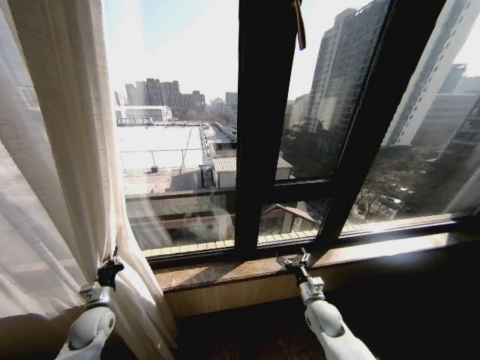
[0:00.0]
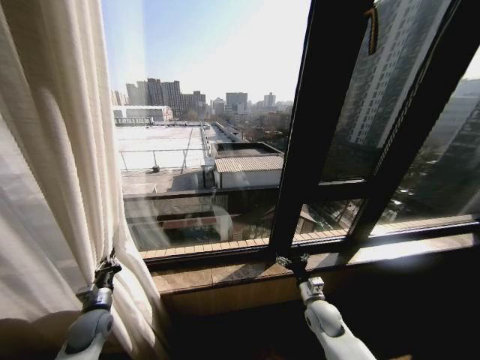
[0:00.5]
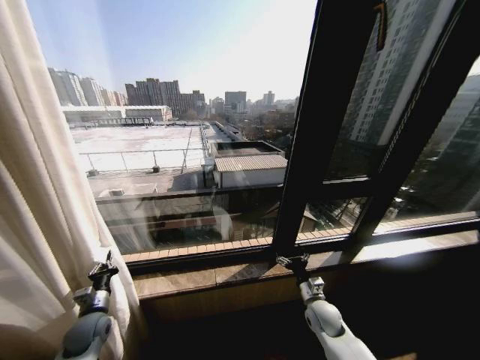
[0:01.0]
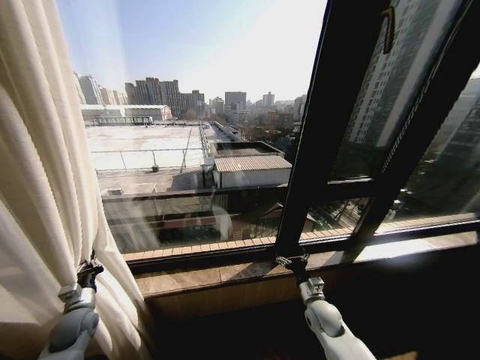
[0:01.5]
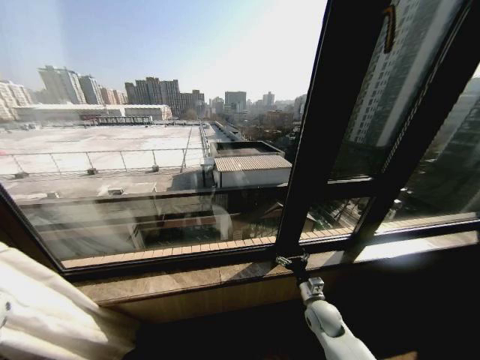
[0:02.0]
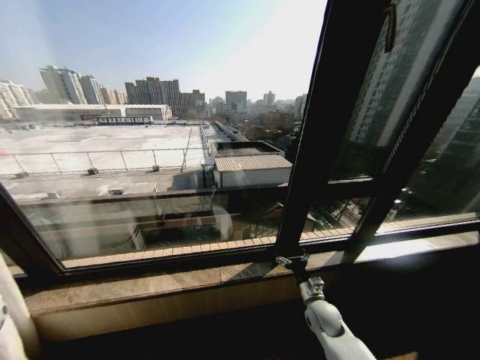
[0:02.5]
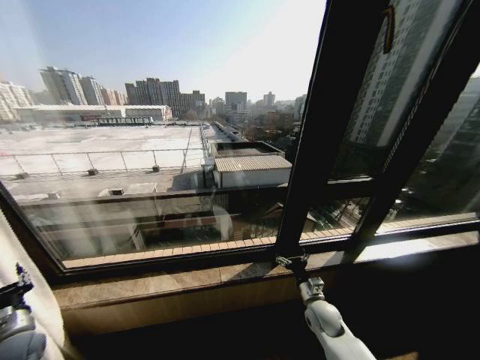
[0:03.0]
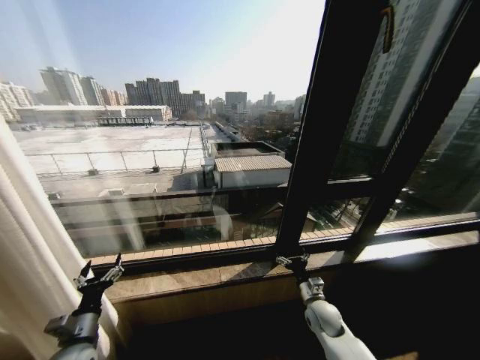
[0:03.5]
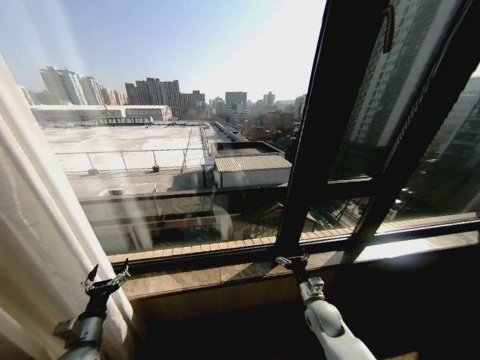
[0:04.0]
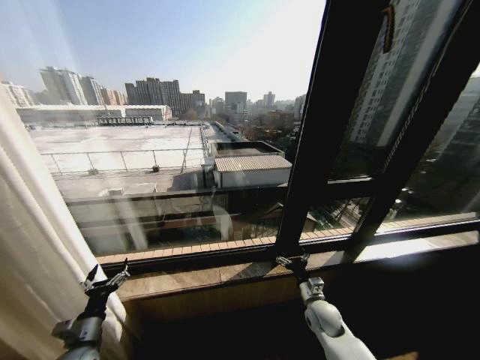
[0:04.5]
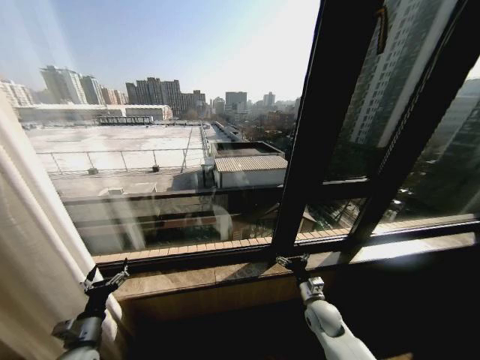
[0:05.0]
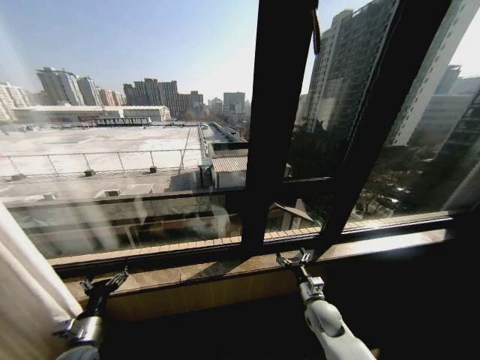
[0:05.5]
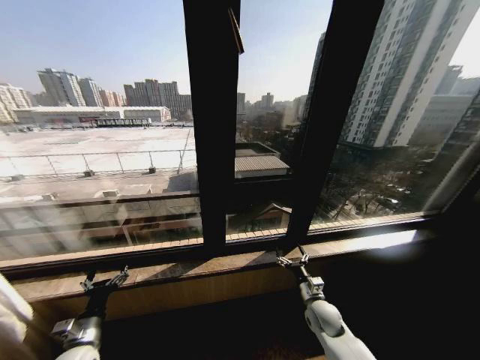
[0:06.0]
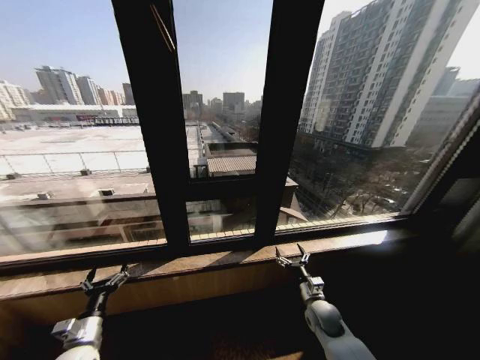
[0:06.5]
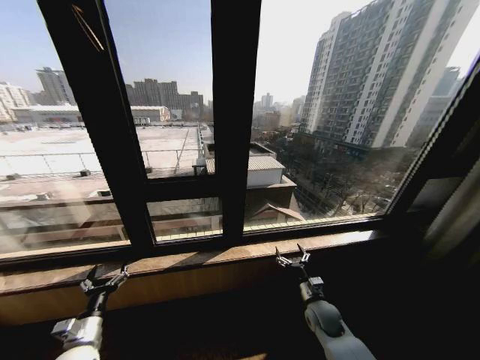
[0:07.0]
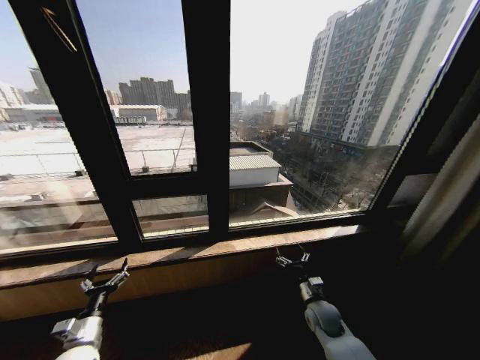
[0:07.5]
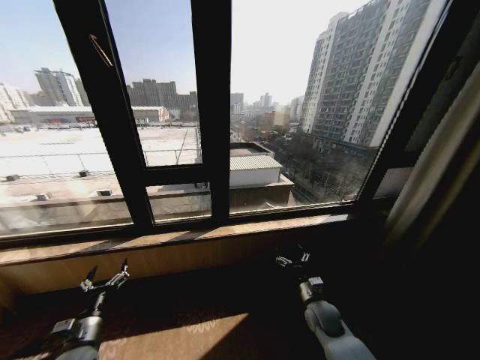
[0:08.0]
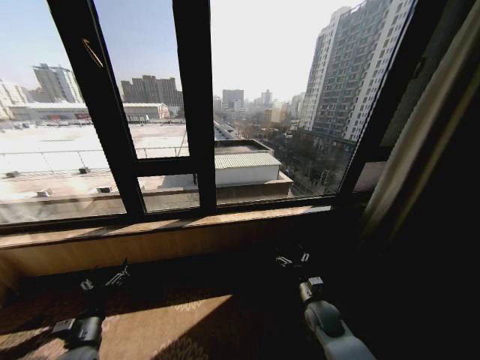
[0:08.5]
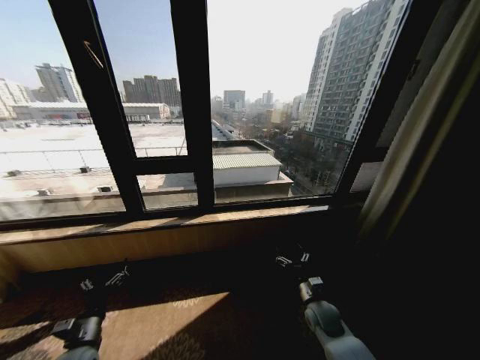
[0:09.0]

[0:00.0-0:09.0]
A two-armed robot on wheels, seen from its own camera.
Task of the whole recording: Open the curtains by pulling them apart, changing their state from closed to fully open.
0:00.0 to 0:02.0: The left gripper goes roughly 30 cm to the left.
0:02.0 to 0:04.5: The left gripper goes roughly 30 cm to the right, and opens its fingers.

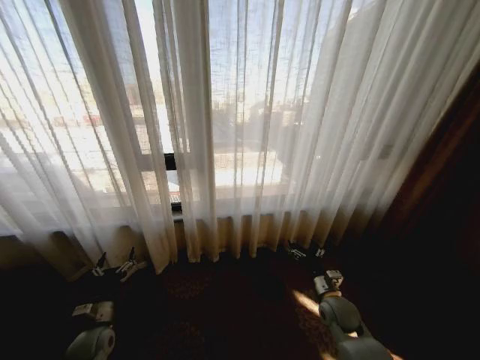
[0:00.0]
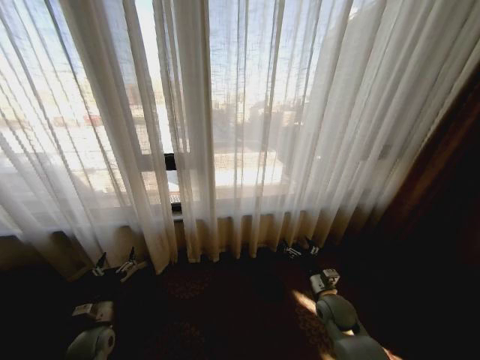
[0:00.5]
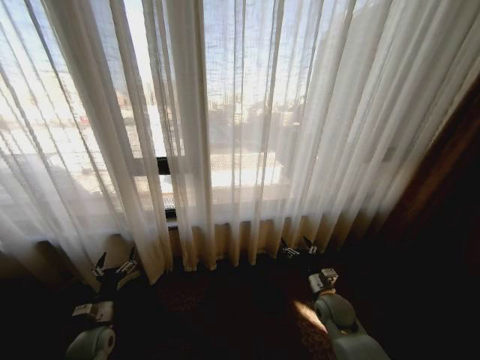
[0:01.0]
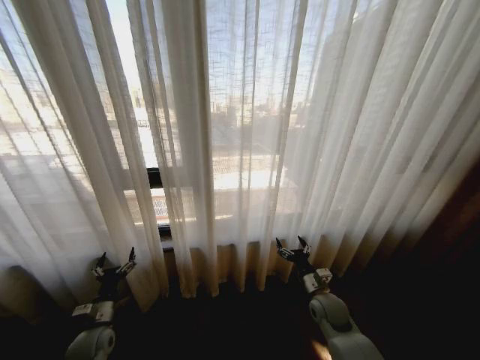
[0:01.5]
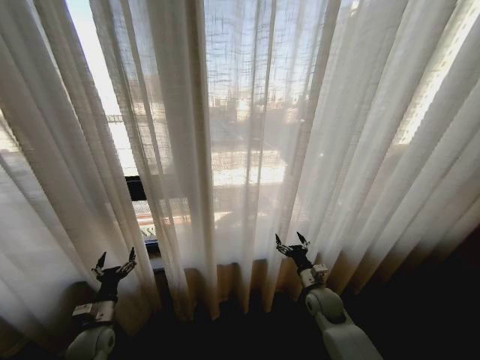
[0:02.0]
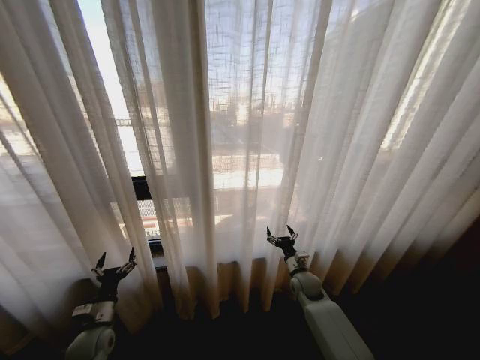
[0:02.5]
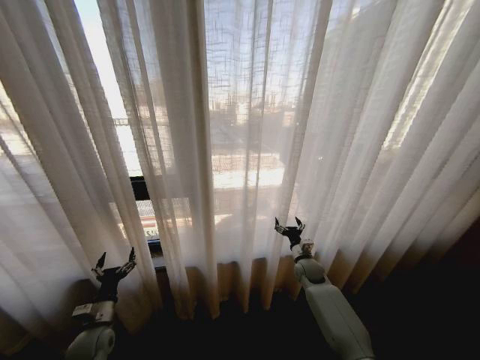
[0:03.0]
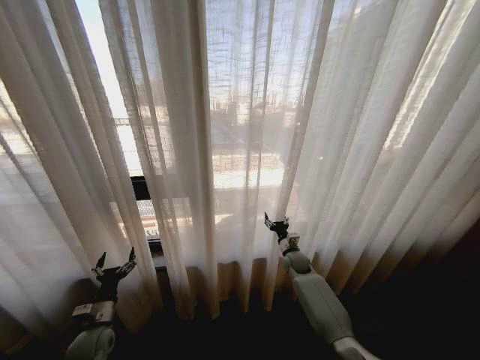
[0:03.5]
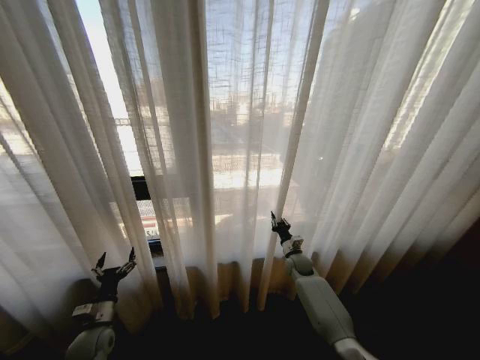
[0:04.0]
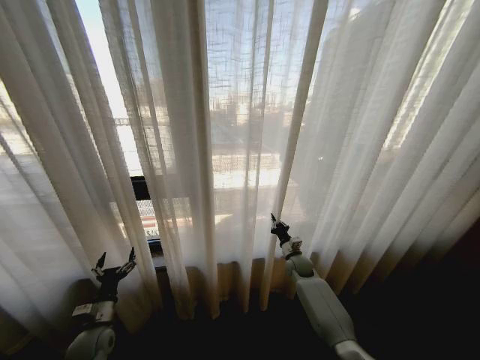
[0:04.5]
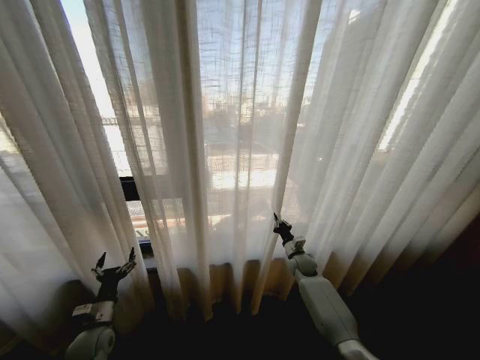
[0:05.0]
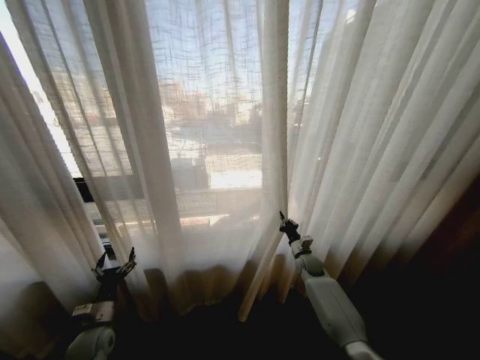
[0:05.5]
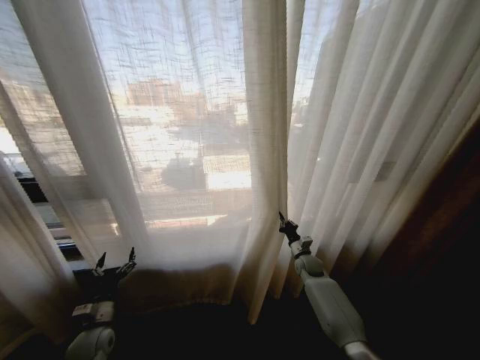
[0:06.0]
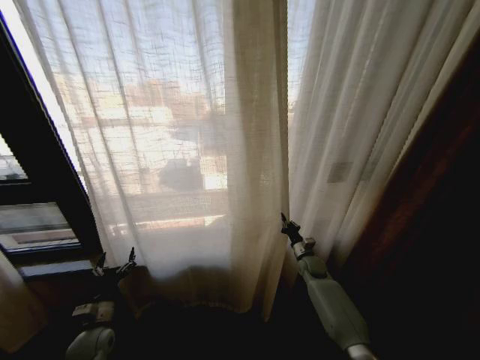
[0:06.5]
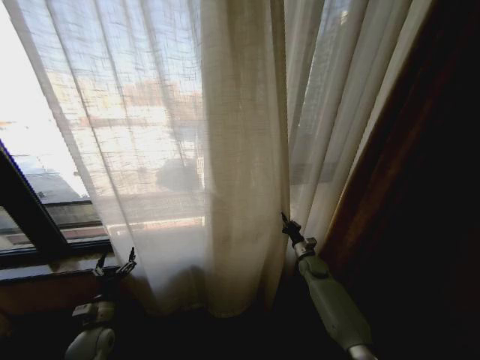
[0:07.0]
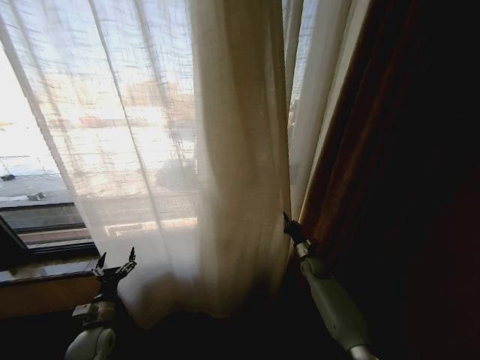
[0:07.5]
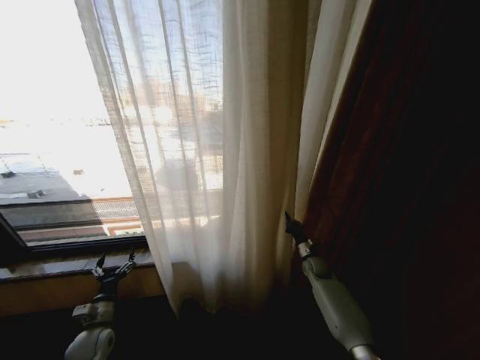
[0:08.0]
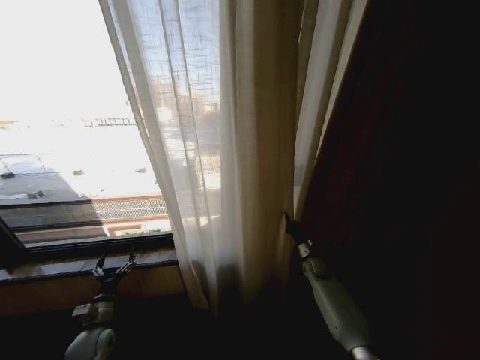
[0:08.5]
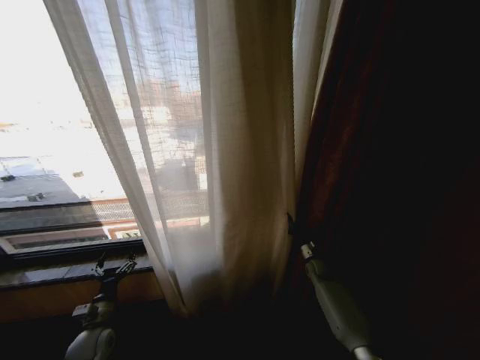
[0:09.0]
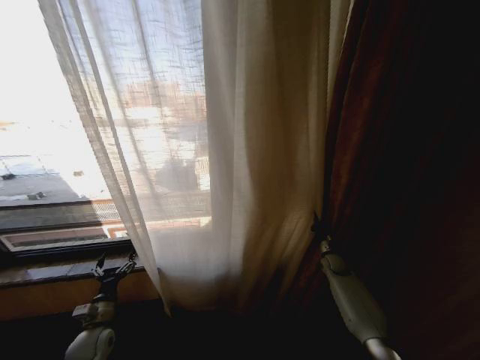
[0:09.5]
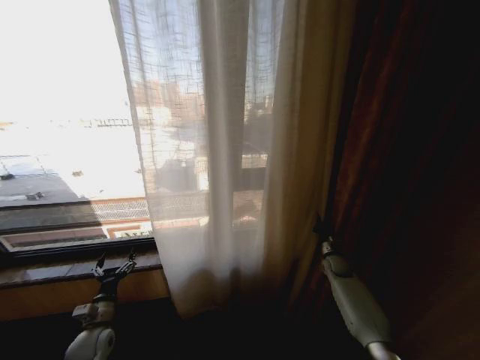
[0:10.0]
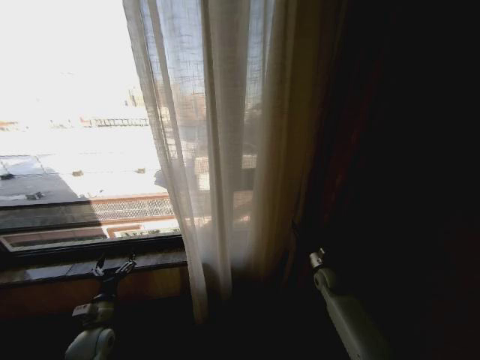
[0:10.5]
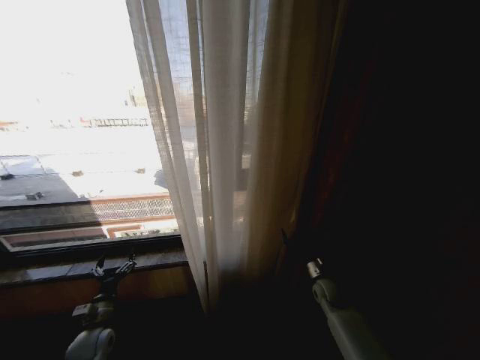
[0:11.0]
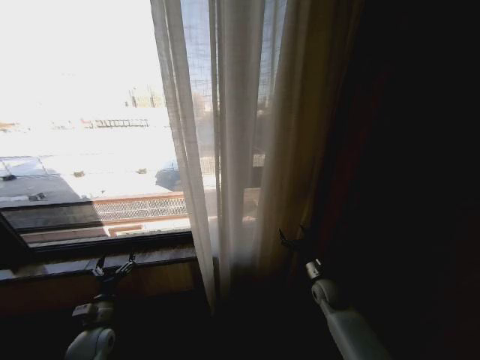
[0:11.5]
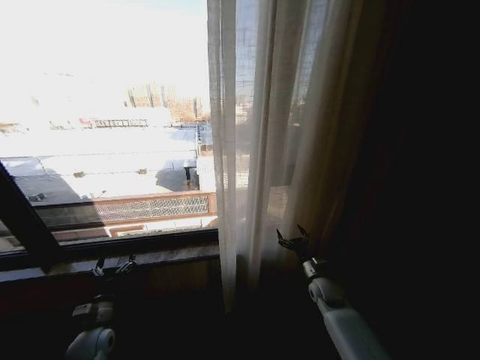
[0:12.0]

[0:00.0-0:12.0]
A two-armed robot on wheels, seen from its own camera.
Task of the whole recording: Open the curtains by pulling them apart, changing their state from closed to fully open.
0:02.0 to 0:04.0: The right gripper goes approximately 15 cm forward, and closes.
0:08.0 to 0:10.0: The right gripper moves to the right, some 10 cm.
0:10.0 to 0:12.0: The right gripper shifts about 15 cm to the left and backward, and opens up.

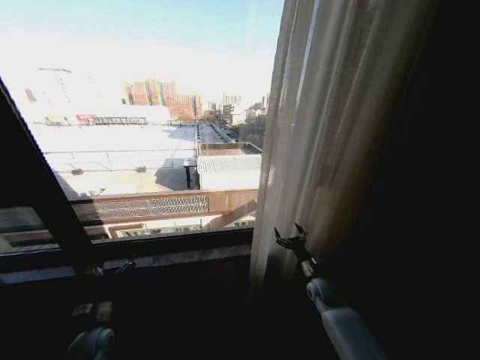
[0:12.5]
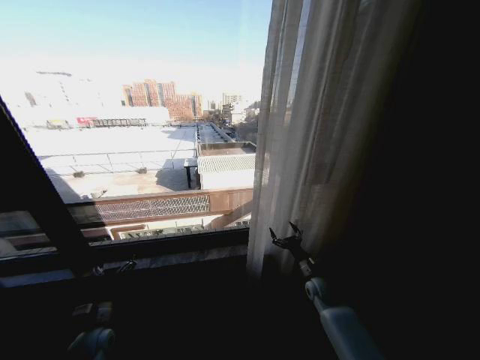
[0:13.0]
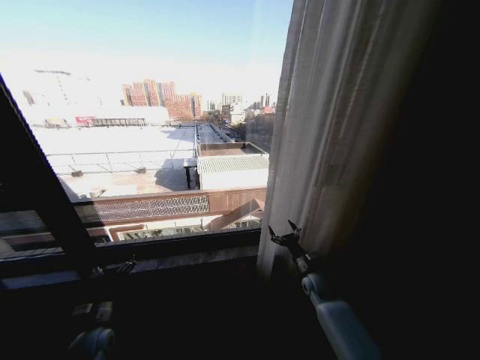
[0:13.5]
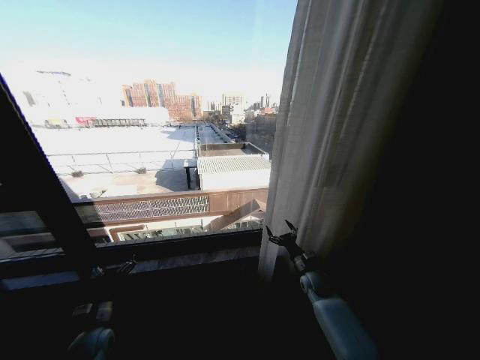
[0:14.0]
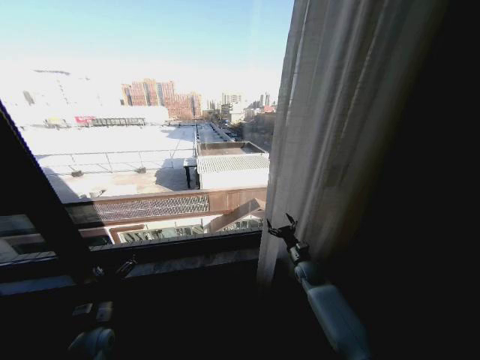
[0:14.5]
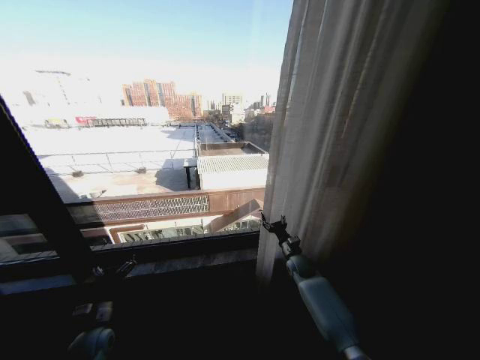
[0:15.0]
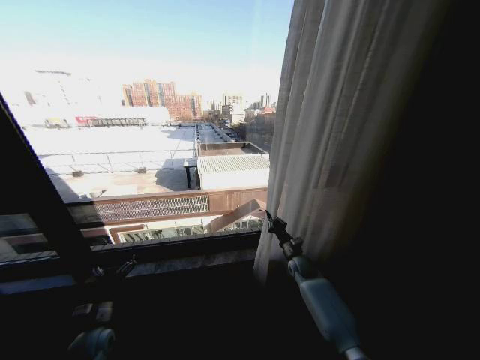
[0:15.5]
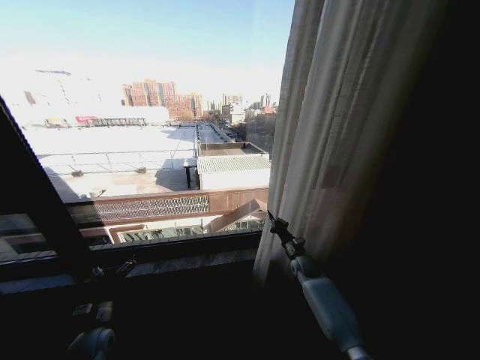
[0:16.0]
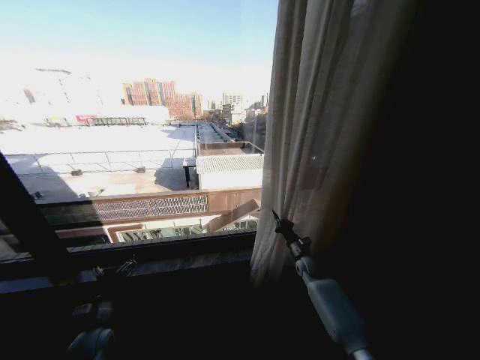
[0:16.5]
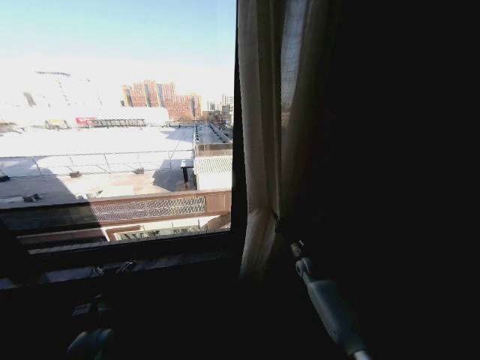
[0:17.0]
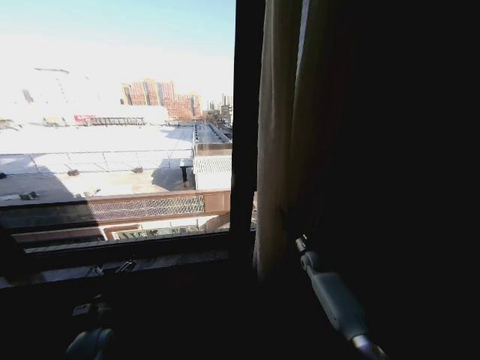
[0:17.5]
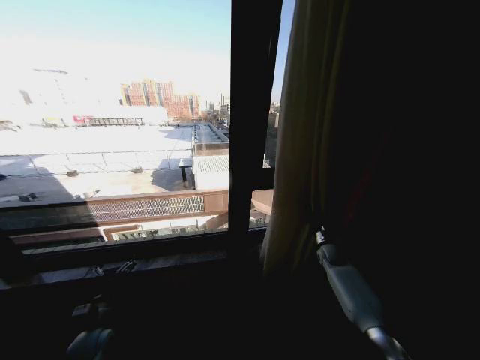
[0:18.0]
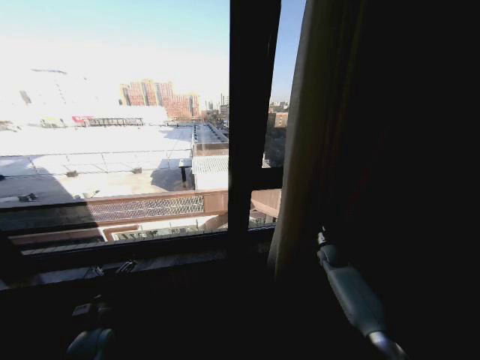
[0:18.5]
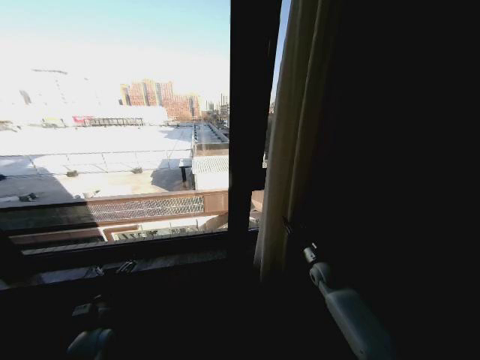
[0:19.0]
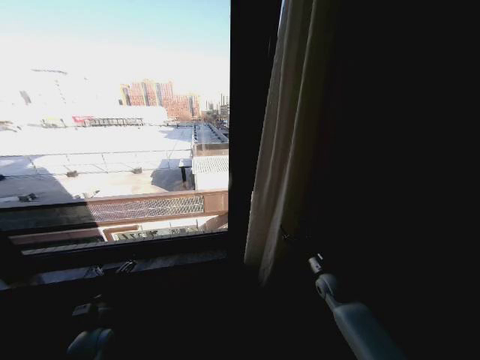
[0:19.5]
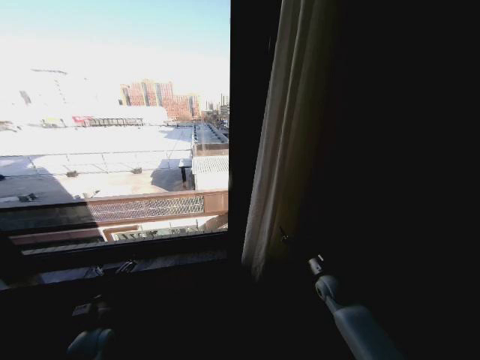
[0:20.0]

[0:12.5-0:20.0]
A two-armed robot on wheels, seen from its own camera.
Task of the whole recording: Open the curtains by pulling them apart, changing their state from closed to fully open.
0:12.5 to 0:14.5: The right gripper goes about 5 cm forward.
0:14.5 to 0:16.5: The right gripper closes its fingers.
0:16.5 to 0:18.0: The right gripper goes roughly 10 cm to the right.
0:18.0 to 0:20.0: The right gripper is displaced backward and to the left by roughly 15 cm, and opens up.
